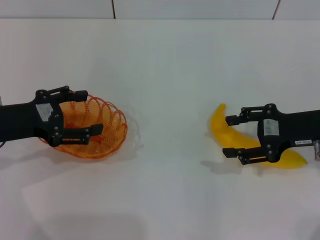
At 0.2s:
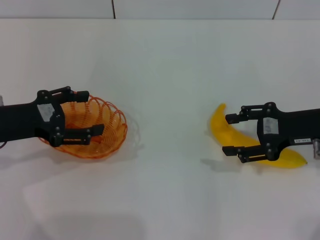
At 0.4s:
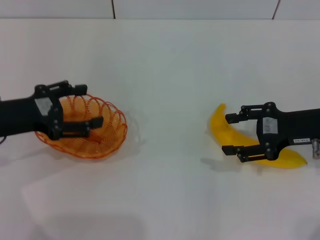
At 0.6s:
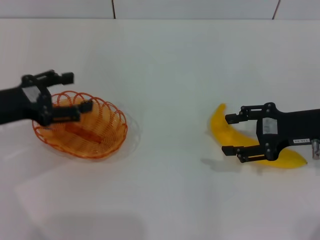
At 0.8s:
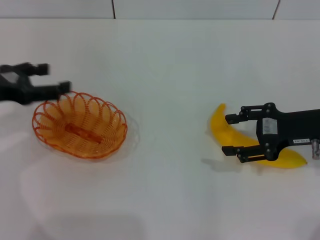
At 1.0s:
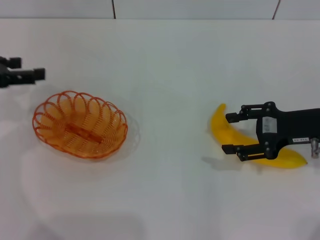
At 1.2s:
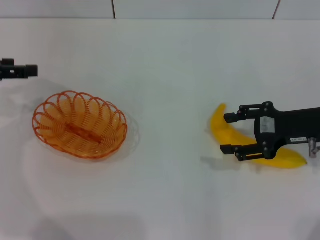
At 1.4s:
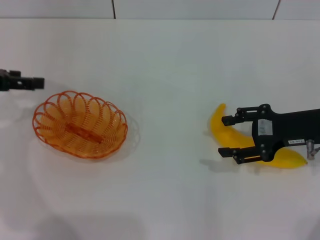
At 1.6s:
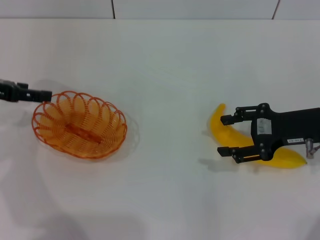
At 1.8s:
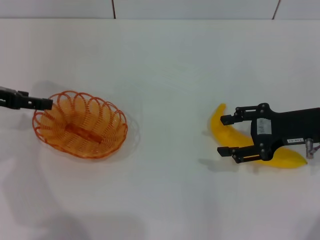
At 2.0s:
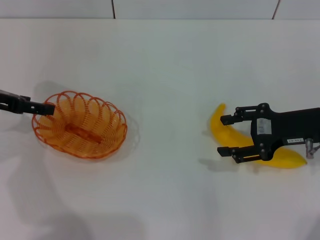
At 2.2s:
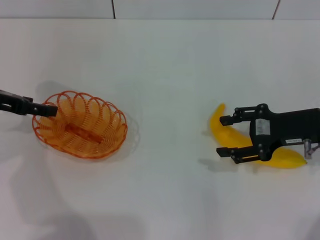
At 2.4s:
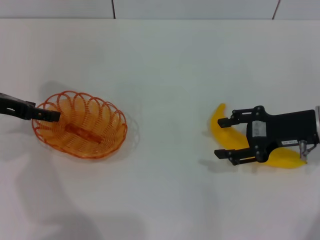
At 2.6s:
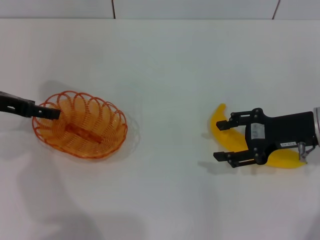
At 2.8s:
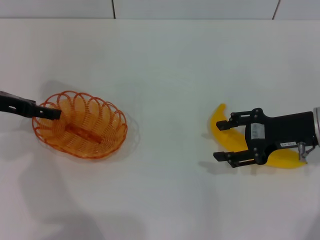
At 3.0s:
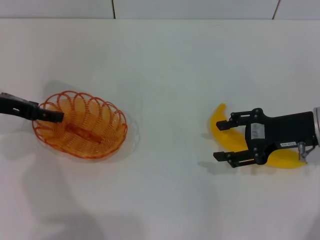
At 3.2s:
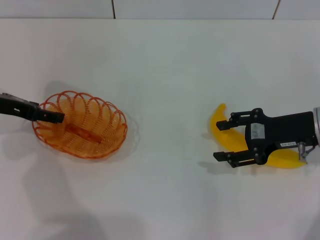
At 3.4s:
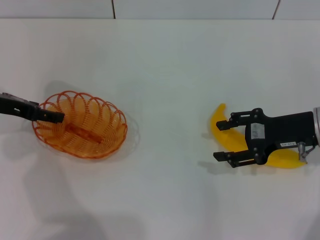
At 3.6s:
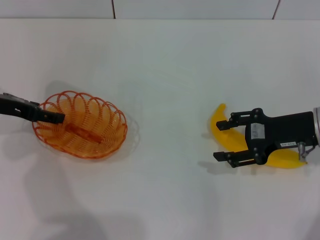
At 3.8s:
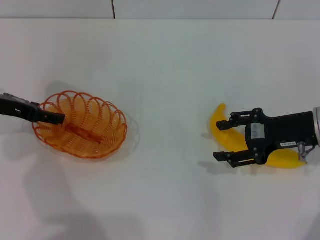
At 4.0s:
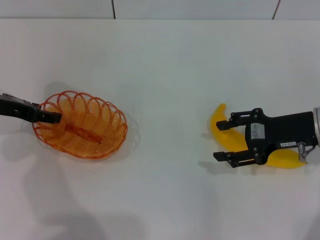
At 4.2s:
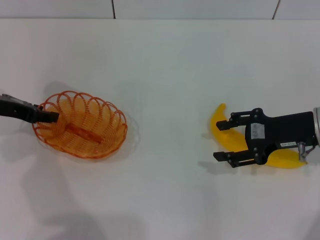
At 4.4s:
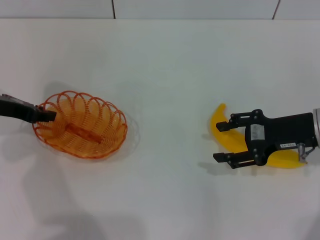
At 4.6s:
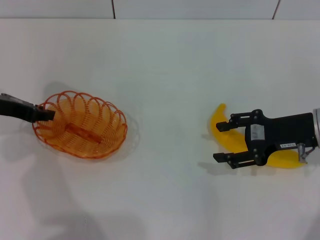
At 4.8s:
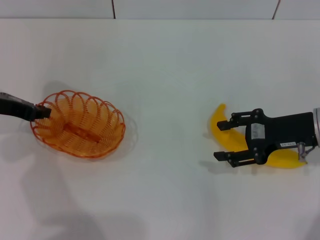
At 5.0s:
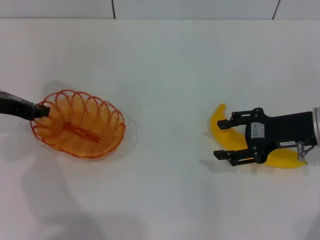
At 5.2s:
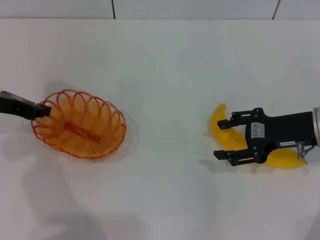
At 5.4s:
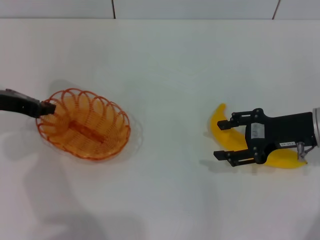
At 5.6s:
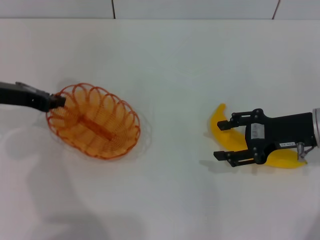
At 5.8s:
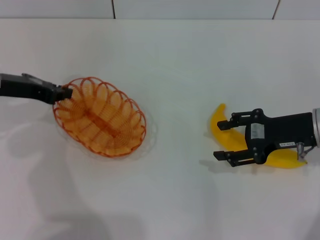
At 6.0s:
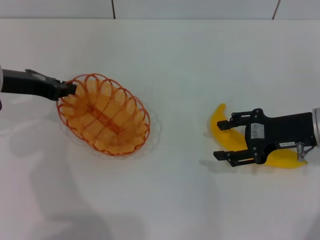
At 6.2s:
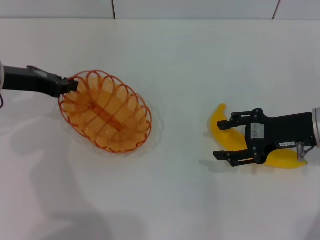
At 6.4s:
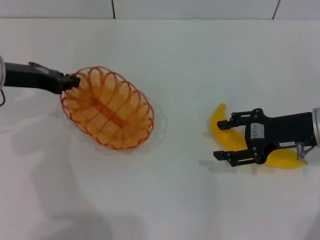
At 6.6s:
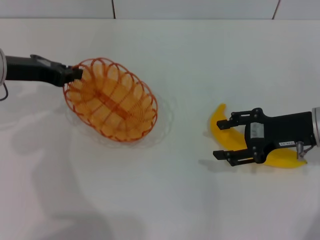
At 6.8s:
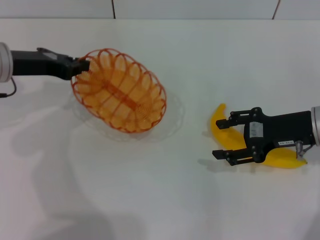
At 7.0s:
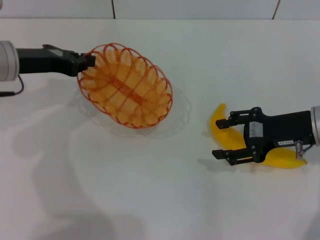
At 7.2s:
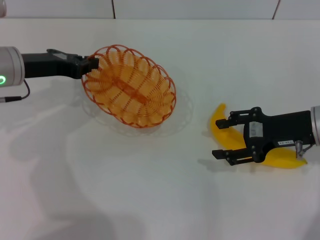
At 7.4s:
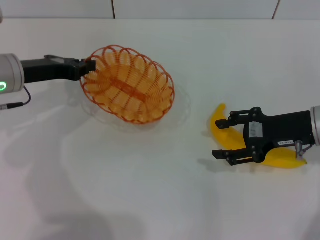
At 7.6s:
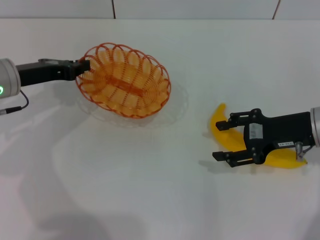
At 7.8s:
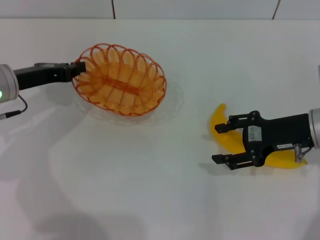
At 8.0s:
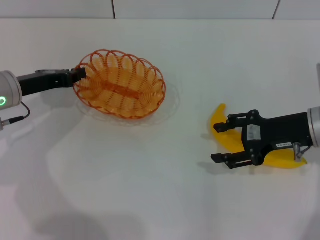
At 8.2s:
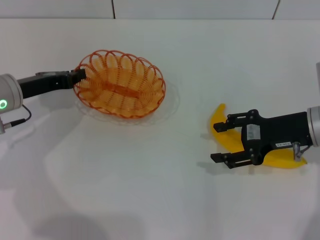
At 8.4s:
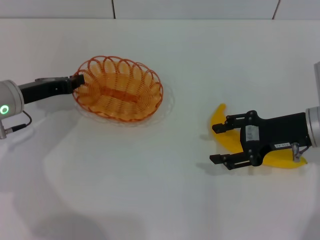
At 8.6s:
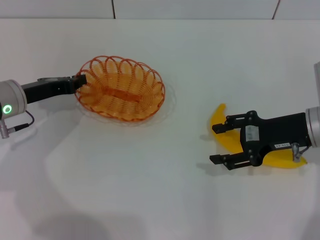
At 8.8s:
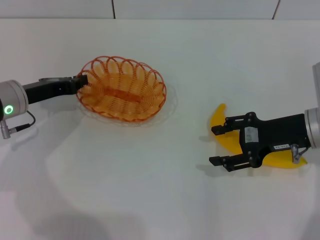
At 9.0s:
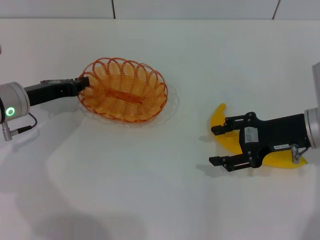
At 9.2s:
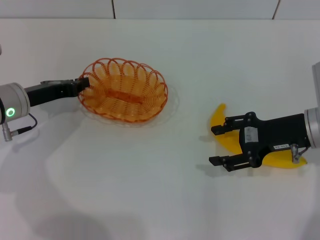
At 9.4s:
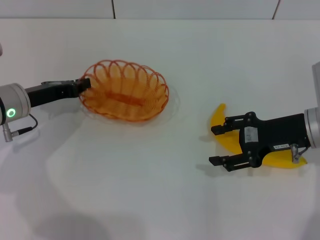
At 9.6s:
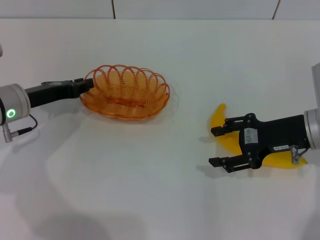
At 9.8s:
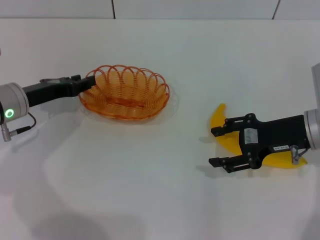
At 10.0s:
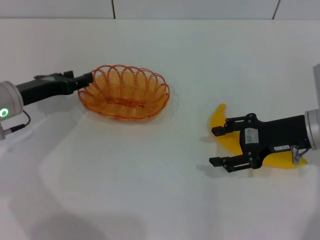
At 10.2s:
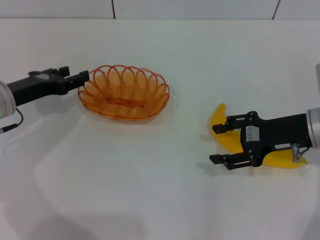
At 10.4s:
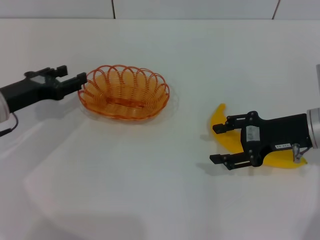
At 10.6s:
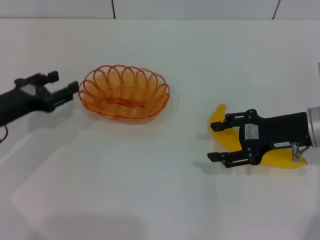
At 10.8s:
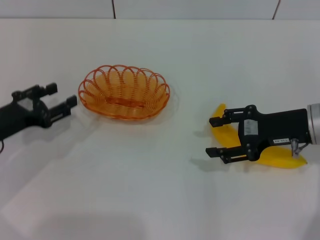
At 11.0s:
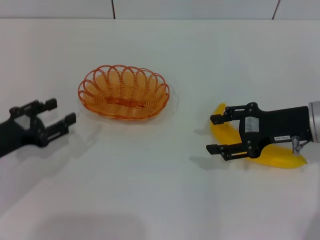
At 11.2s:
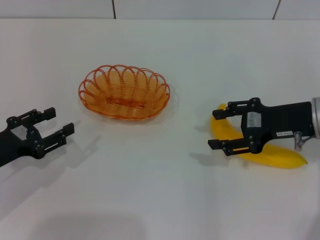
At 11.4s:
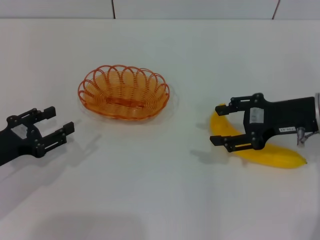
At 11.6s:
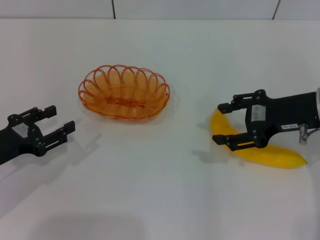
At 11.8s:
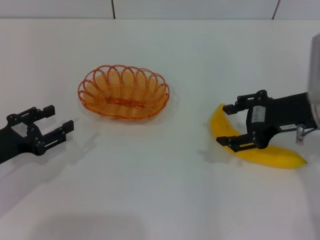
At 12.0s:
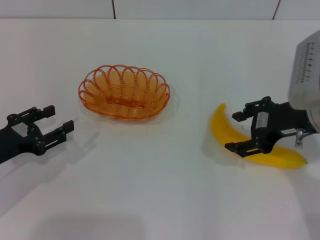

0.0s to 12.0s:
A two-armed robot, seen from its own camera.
Step, 0.0s to 6.6s: Pick up the basket with the left gripper.
Step, 6.8s to 11.2s: Place the basket in the center of view with the left gripper.
0.0s to 1.6s: The left gripper heads forward, covering roughly 5 cm.
1.6s to 3.0s: The grippers move only a little.
3.0s to 4.4s: The left gripper closes its fingers.
4.4s to 6.0s: The left gripper closes up.
6.0s to 7.6s: The grippers stay close to where they were, moving slightly.
7.6s to 9.0s: The grippers stay close to where they were, moving slightly.
9.0s to 10.4s: The left gripper opens.
10.4s to 12.0s: The right gripper goes roughly 5 cm upward; the left gripper moves backward, approximately 10 cm.

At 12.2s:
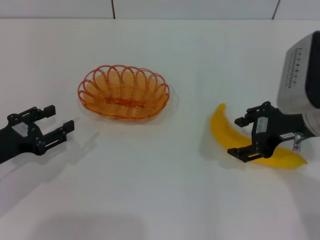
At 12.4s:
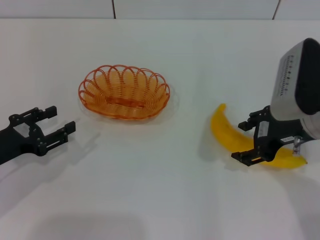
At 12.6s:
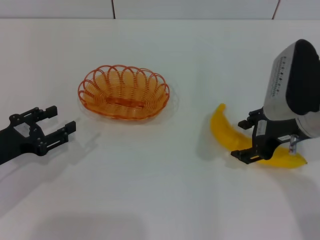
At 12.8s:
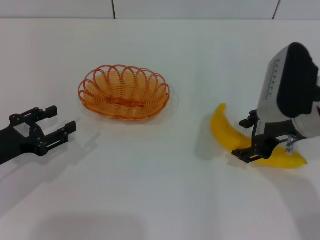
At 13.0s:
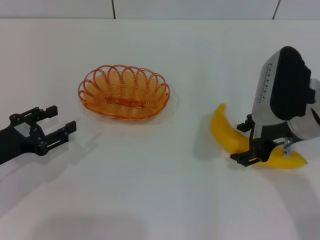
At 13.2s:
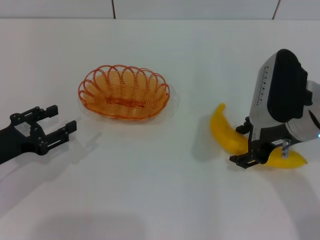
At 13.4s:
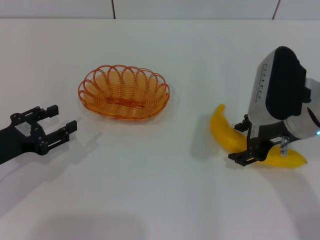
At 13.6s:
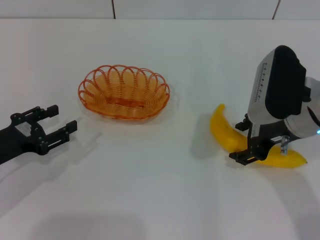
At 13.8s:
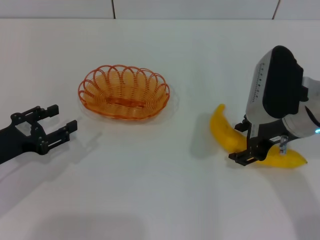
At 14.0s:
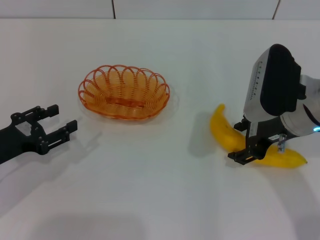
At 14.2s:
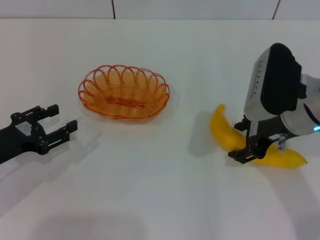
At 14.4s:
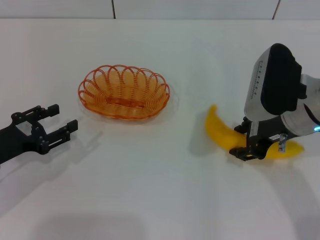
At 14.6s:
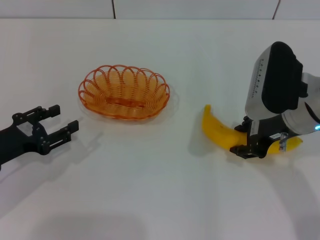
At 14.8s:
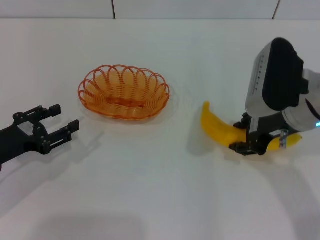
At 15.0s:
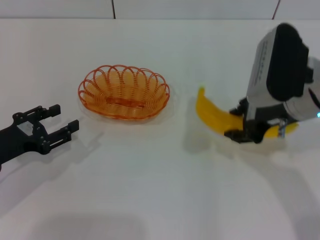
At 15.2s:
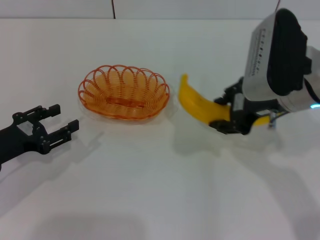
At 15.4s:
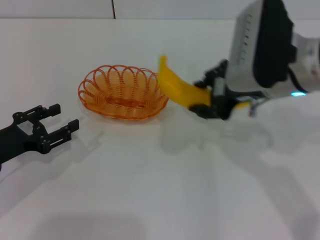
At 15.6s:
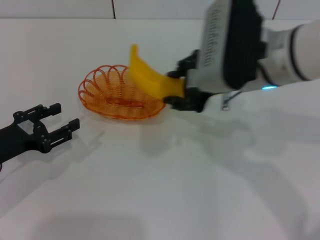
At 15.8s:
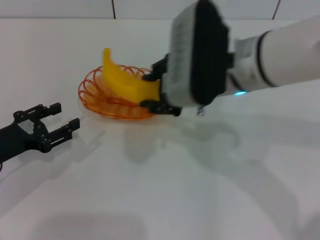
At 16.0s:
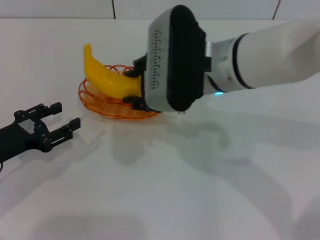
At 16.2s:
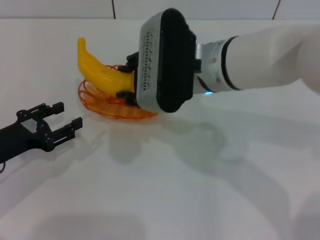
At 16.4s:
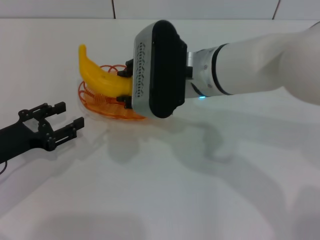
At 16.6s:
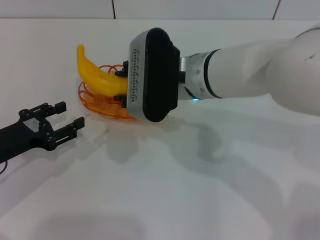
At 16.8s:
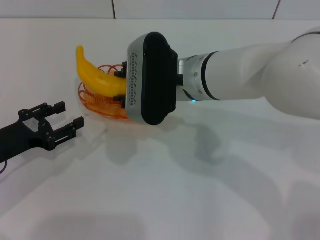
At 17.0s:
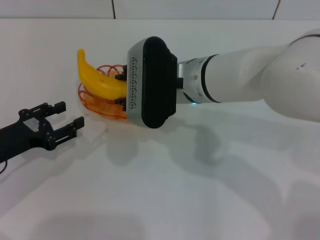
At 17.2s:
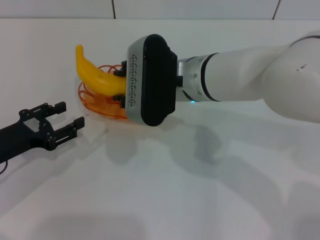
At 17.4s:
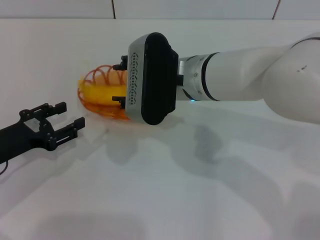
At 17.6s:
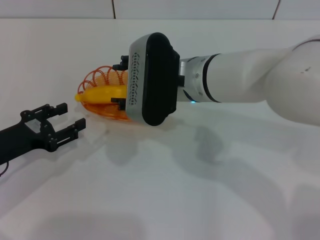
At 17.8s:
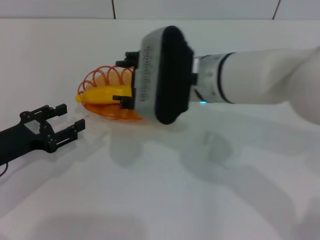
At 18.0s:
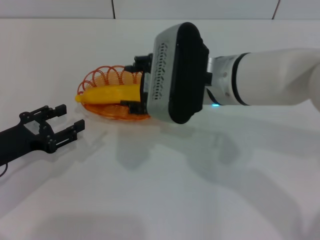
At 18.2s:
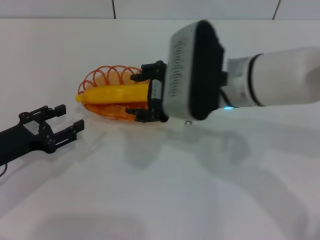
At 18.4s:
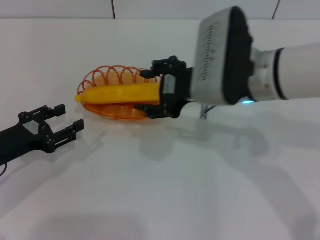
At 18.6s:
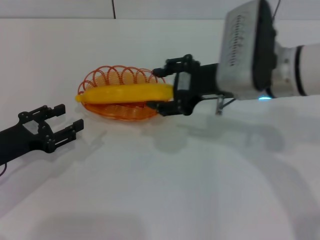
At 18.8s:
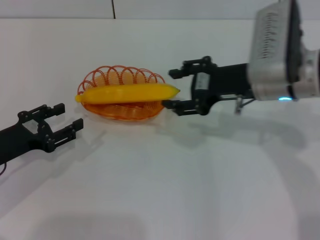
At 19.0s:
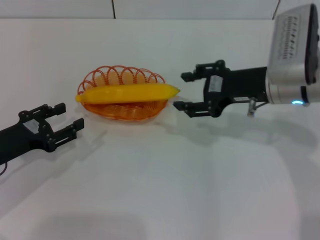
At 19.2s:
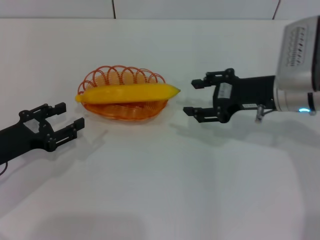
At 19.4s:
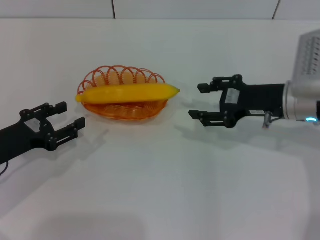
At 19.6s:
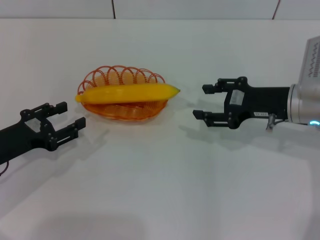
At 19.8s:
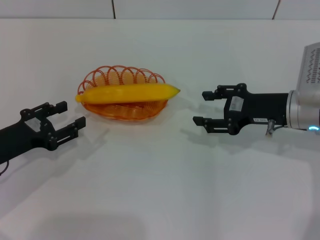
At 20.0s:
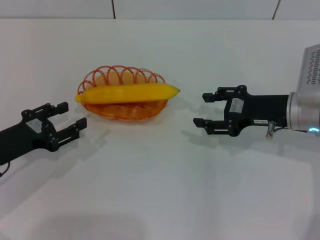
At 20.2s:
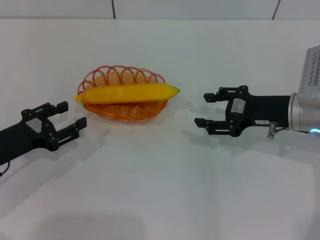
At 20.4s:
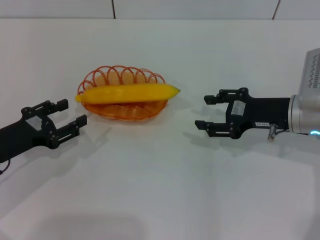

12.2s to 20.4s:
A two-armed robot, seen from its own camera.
Step, 12.2s to 15.0s: Pick up the banana with the right gripper.
Step, 15.2s to 18.6s: Place the banana into the basket with the right gripper.
12.2s to 13.8s: The grippers stay close to where they were, moving slightly.
13.8s to 15.4s: The right gripper heads upward, covering about 5 cm, and closes.
15.4s to 17.2s: The right gripper goes approximately 10 cm to the left.
17.2s to 18.8s: The right gripper heads to the right, covering roughly 15 cm, and opens up.
18.8s to 20.4s: The right gripper shifts approximately 10 cm to the right and downward.

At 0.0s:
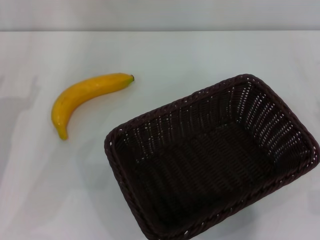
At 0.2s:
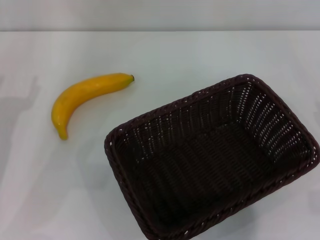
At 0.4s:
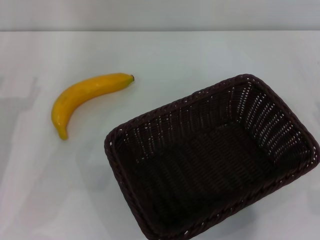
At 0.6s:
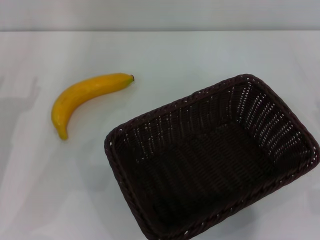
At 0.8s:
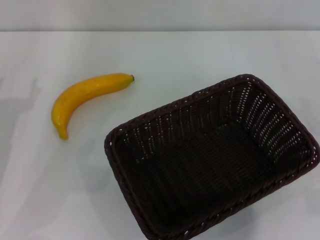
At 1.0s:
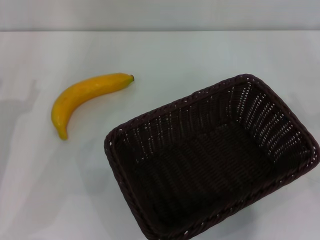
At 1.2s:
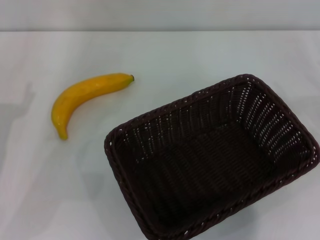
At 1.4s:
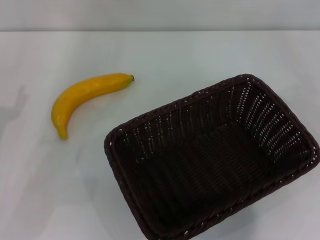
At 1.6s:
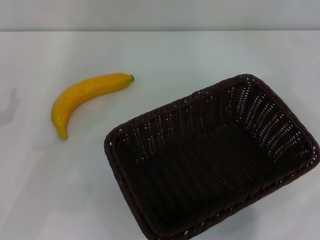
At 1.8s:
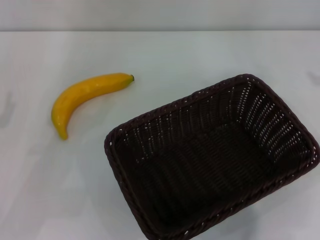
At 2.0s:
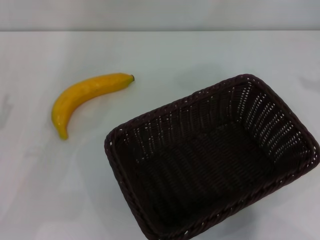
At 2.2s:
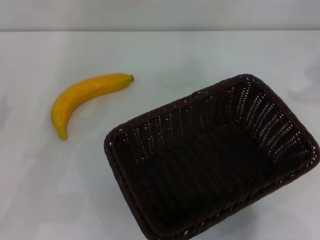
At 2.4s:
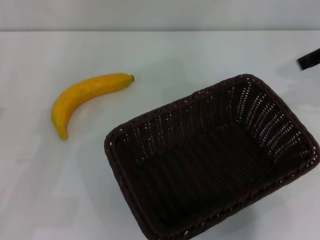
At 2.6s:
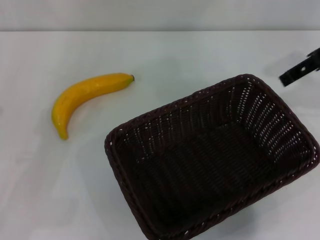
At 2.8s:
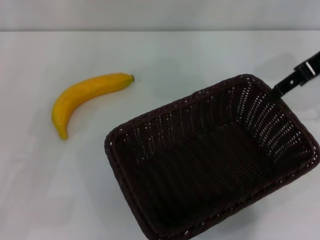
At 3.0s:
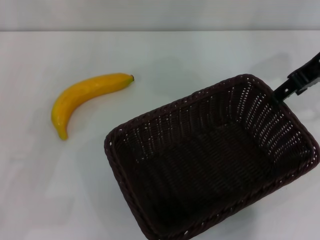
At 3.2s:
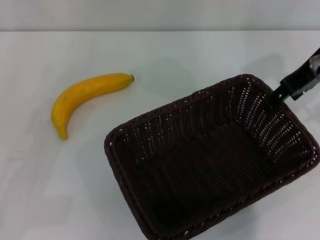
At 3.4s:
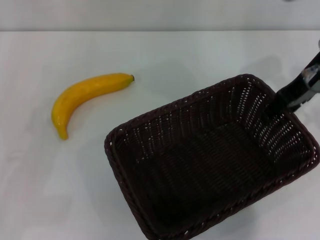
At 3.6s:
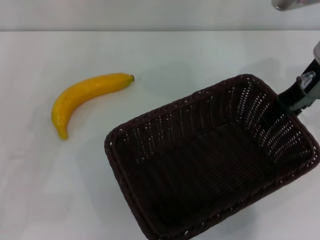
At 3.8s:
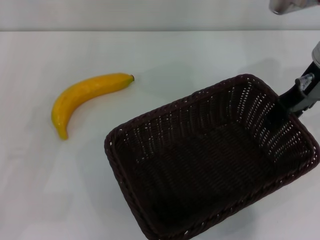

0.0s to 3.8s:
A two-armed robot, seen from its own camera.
1.2s to 2.6s: The right gripper shifts about 25 cm to the left, upward and forward.
2.6s to 3.8s: The right gripper goes about 10 cm downward and to the left.
